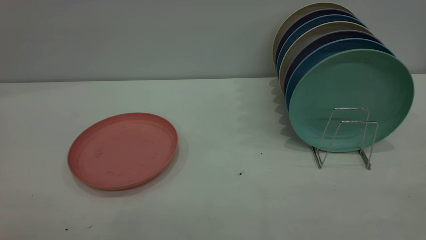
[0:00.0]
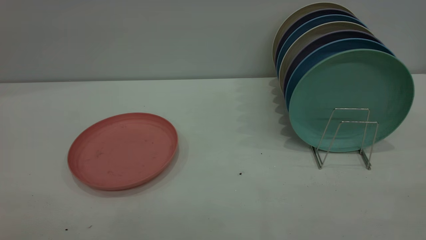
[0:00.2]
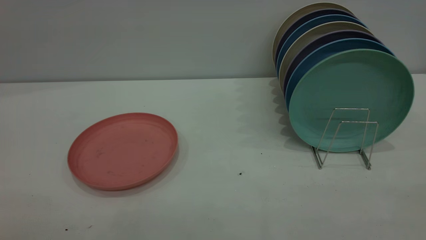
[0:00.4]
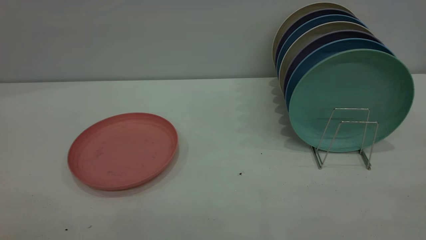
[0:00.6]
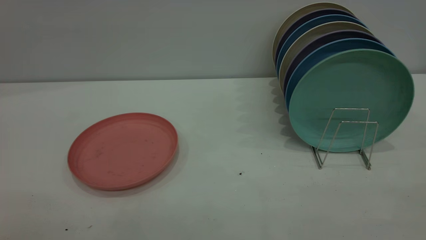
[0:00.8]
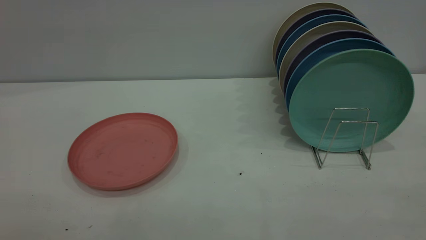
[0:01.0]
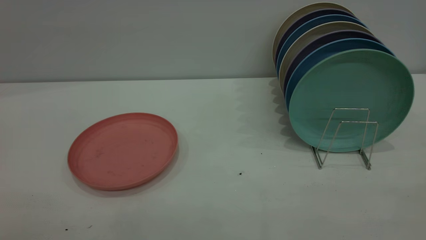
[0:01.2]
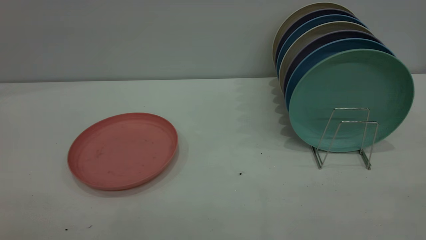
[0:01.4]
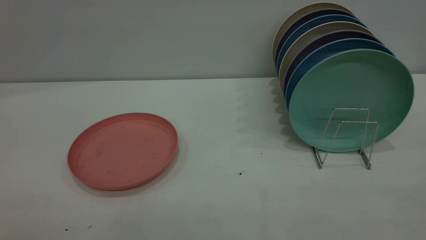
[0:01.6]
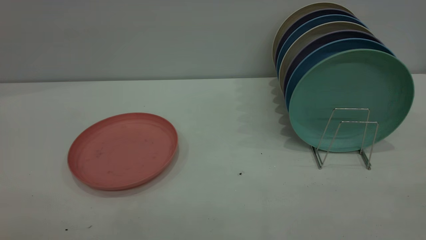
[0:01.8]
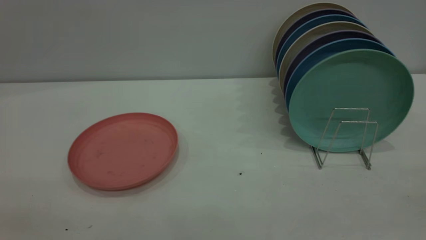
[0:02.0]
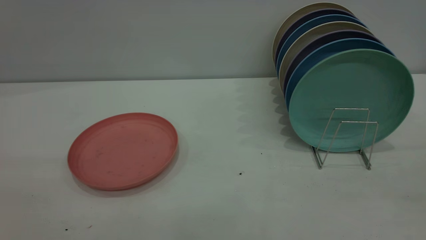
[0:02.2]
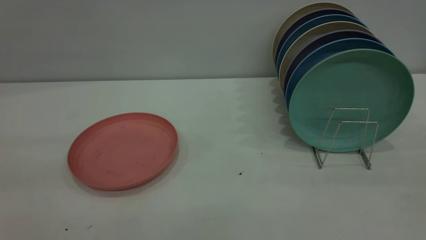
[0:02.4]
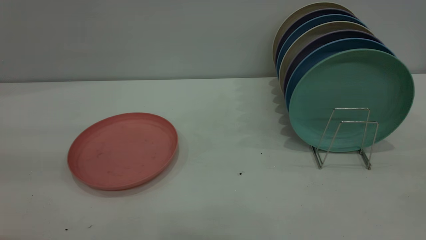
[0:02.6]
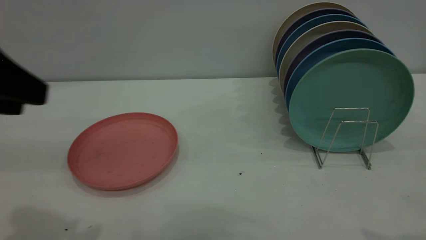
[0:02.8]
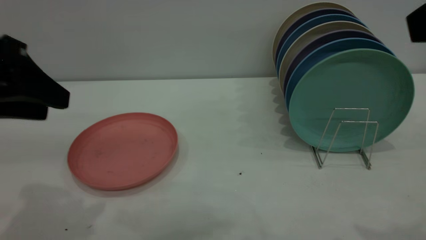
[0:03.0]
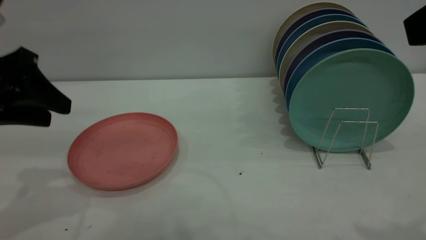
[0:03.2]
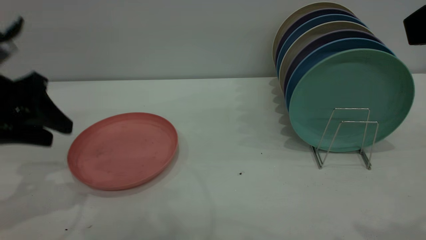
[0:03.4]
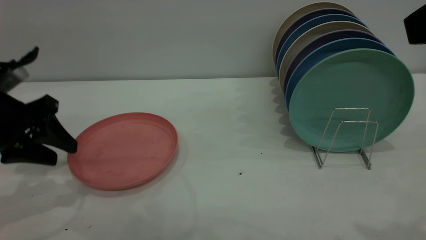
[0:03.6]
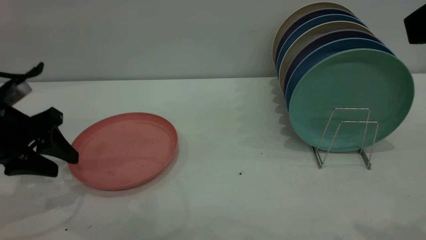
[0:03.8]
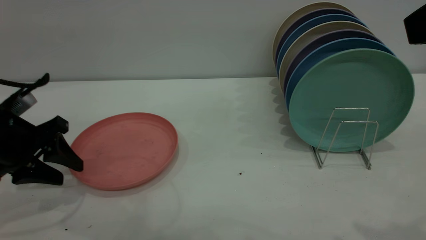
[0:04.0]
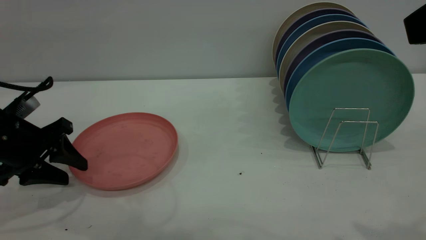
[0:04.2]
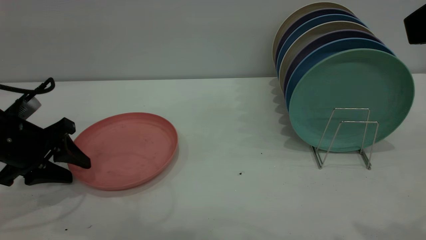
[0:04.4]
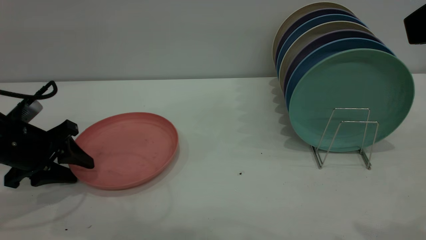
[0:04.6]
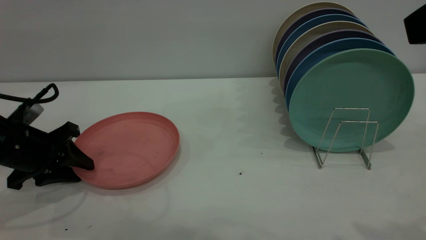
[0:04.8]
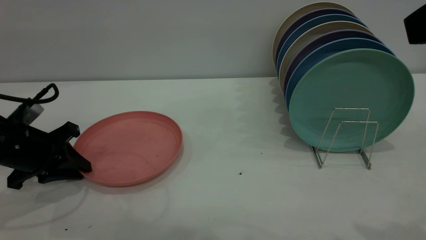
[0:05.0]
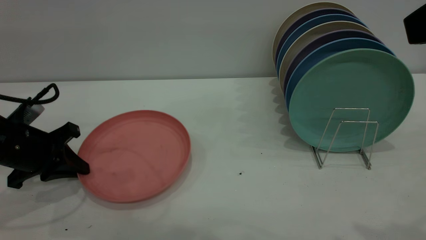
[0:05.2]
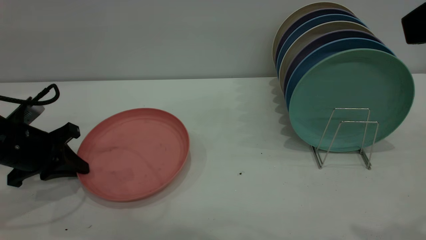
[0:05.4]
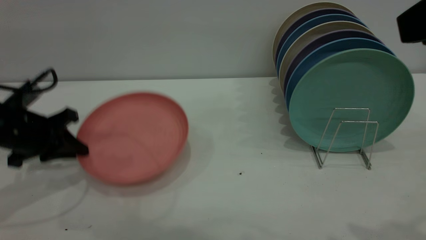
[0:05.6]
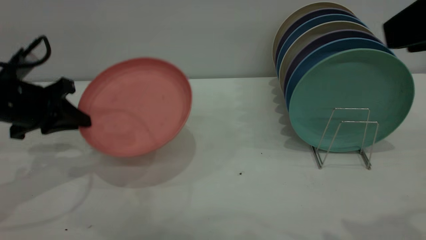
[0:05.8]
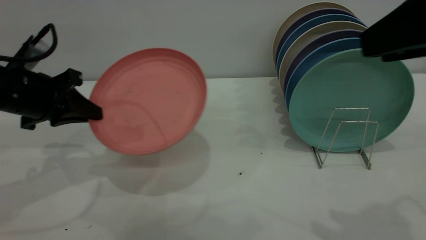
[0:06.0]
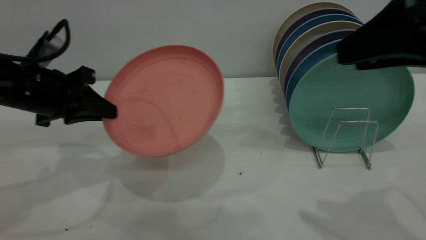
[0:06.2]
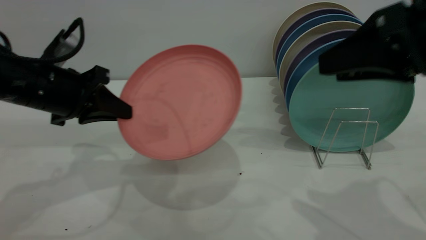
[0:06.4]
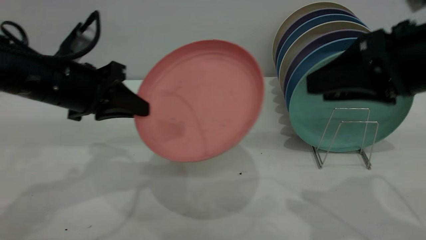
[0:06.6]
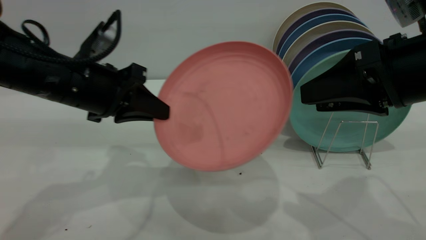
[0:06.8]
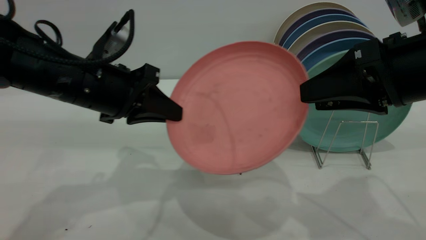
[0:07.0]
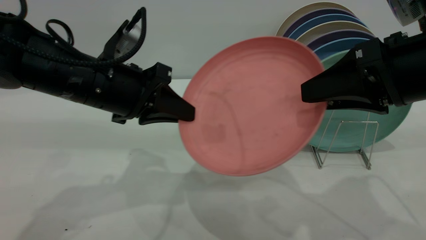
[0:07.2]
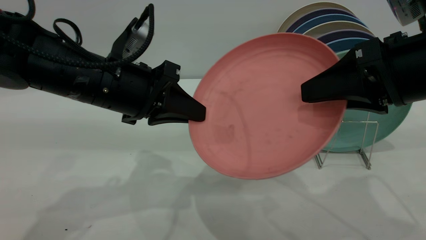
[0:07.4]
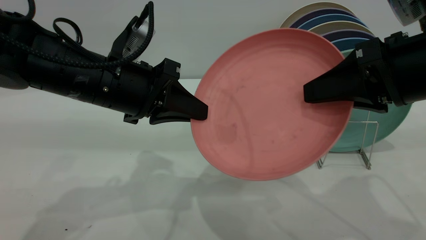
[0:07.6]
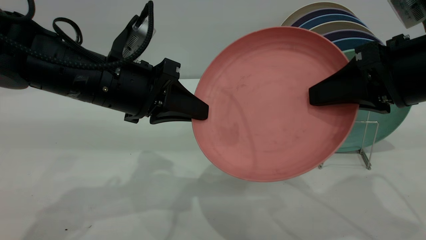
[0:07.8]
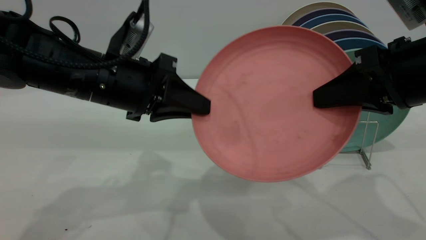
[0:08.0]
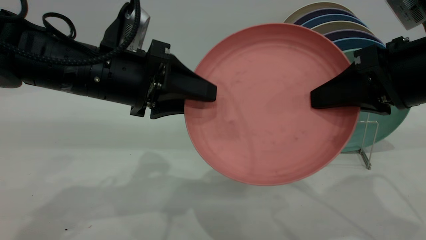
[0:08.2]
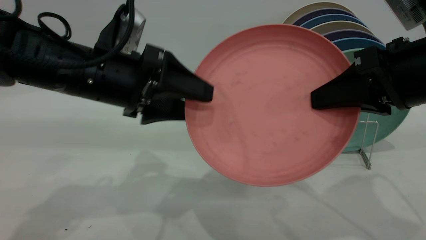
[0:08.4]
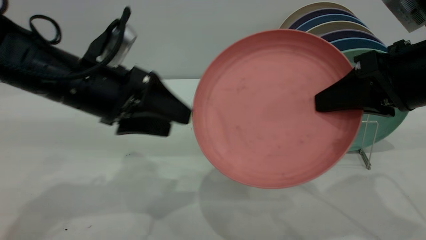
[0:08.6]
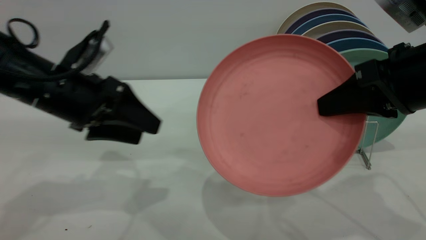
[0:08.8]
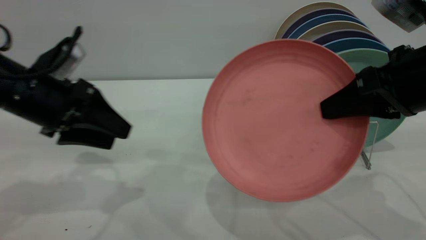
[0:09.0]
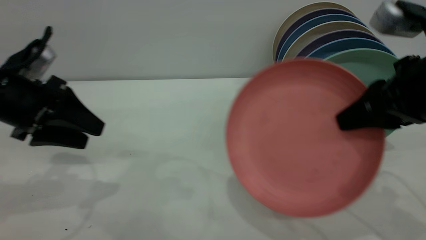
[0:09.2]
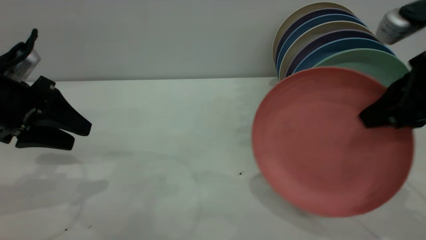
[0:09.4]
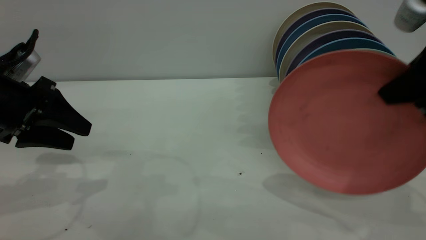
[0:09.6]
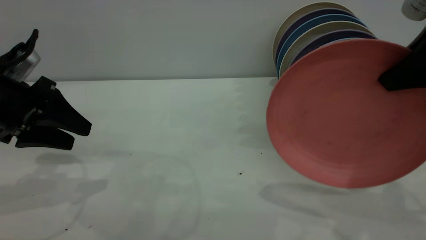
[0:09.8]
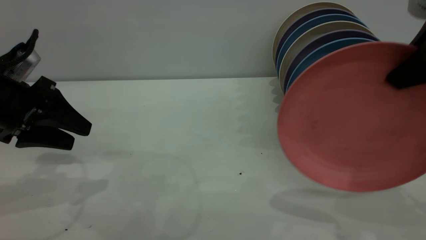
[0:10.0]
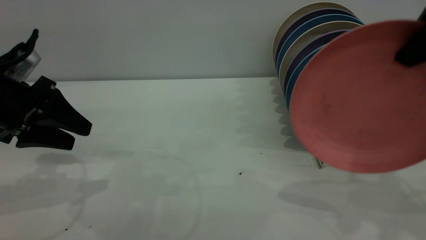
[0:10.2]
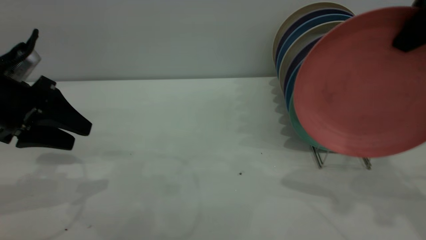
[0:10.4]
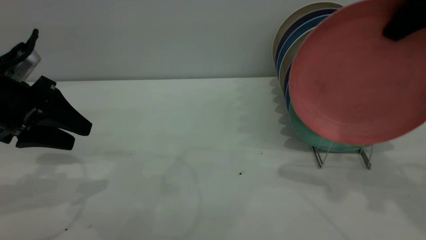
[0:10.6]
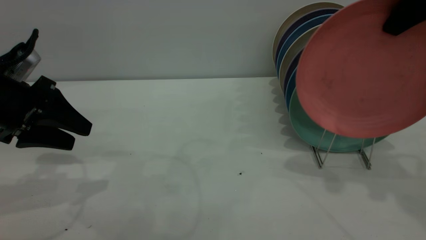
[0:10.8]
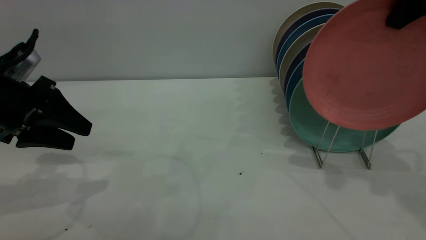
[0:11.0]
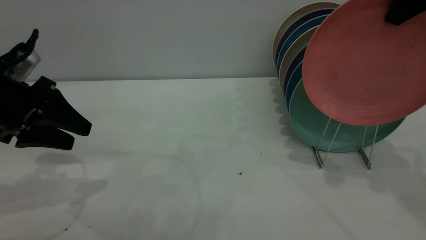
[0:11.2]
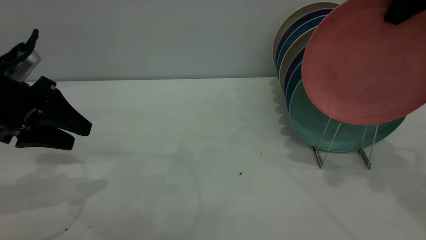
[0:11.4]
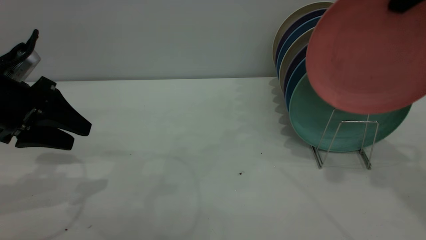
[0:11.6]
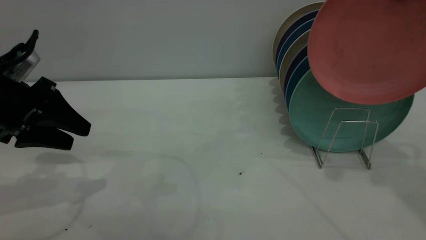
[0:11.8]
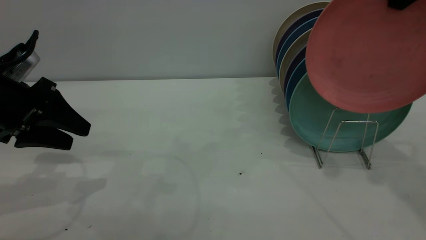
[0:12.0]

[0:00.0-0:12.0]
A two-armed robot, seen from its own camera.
Task of the whole recording: the left gripper grasp the pink plate, the left gripper pass the pink plate to the right gripper, and the right gripper place the pink plate on the plate rack.
Step, 0:00.0 to 0:05.6: Pick up the plate with the left gripper.
Step, 0:05.8 to 0:08.6: Pass the plate from the left gripper to the right gripper.
0:00.0 to 0:01.6: The two grippers keep their place.
0:01.6 to 0:03.0: The left gripper travels forward by approximately 25 cm.
0:03.0 to 0:04.4: The left gripper heads downward and forward, covering about 15 cm.
0:04.4 to 0:06.0: The right gripper moves about 5 cm; the left gripper travels upward by about 5 cm, and closes up.
0:06.0 to 0:07.6: The left gripper moves to the right, about 15 cm. The right gripper shifts some 10 cm downward, and closes.
0:07.6 to 0:09.0: The left gripper moves to the left, roughly 10 cm, and opens. Meanwhile the right gripper closes.
0:09.0 to 0:10.4: The right gripper shifts roughly 10 cm upward.
0:10.4 to 0:12.0: The right gripper shifts roughly 5 cm forward.

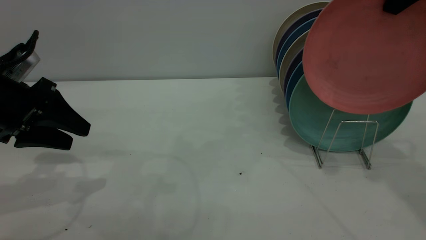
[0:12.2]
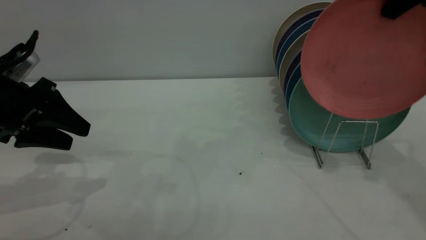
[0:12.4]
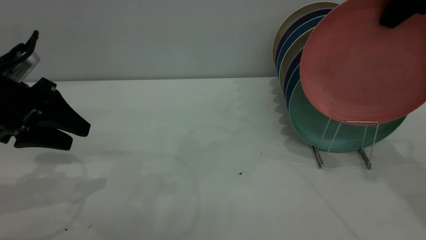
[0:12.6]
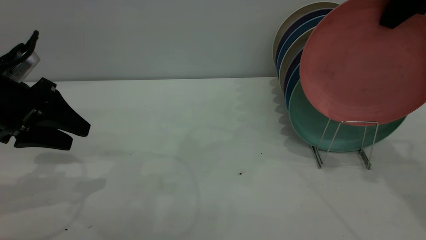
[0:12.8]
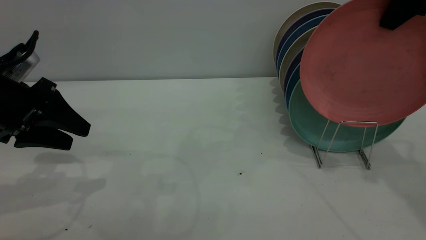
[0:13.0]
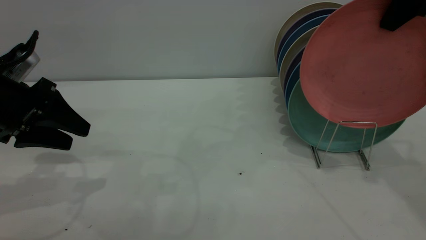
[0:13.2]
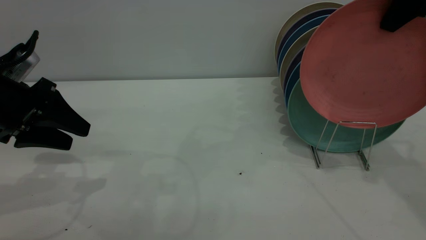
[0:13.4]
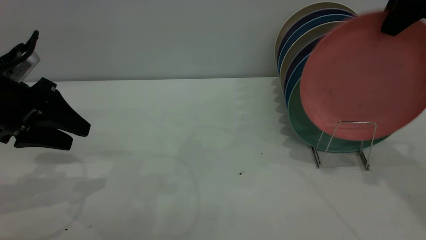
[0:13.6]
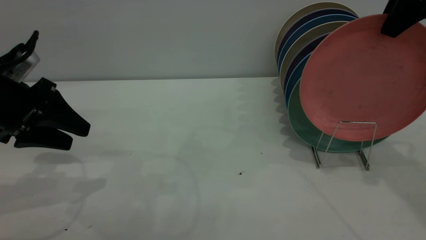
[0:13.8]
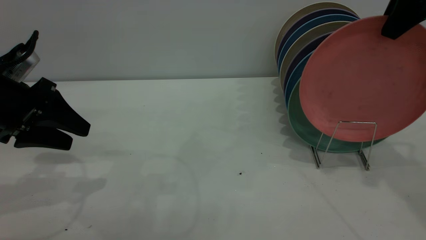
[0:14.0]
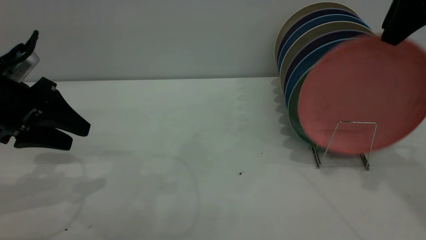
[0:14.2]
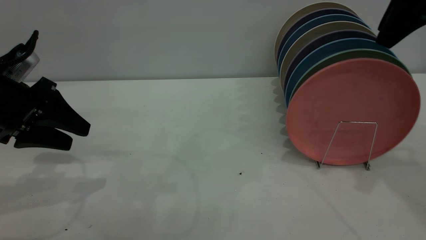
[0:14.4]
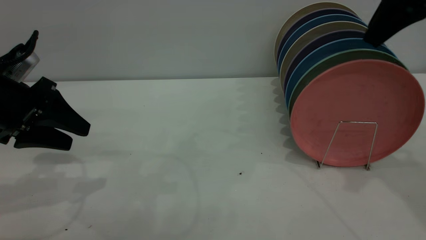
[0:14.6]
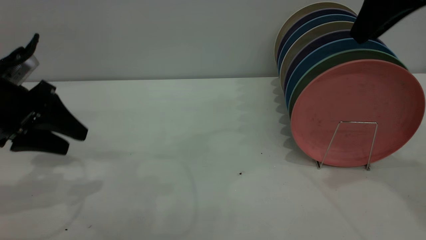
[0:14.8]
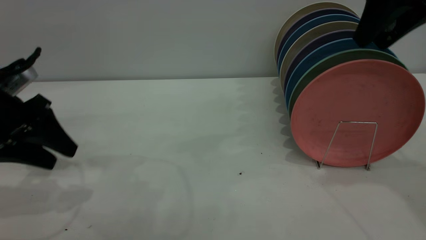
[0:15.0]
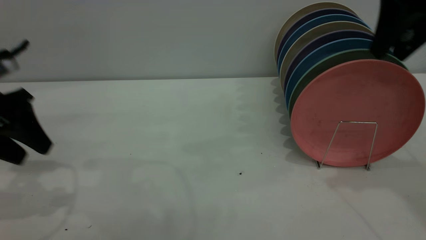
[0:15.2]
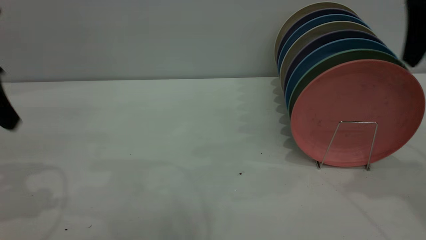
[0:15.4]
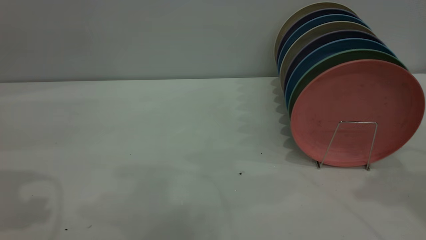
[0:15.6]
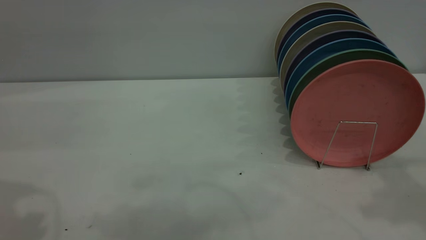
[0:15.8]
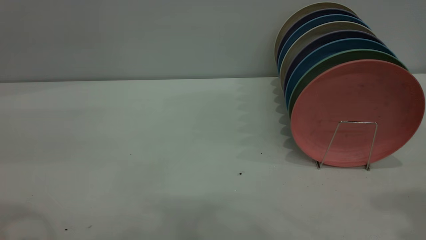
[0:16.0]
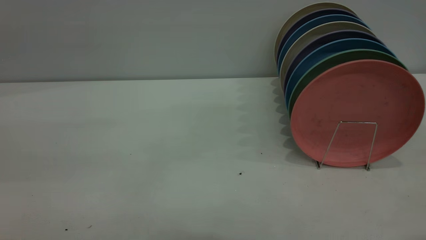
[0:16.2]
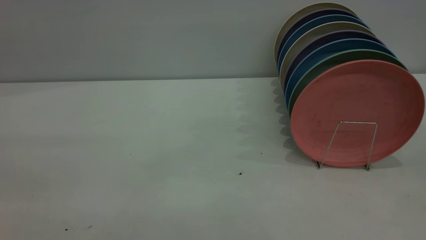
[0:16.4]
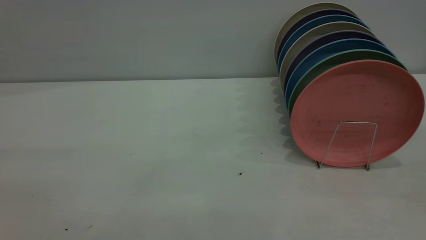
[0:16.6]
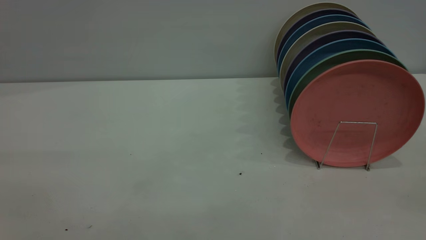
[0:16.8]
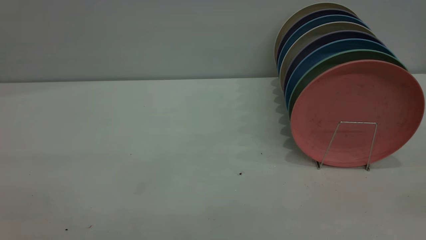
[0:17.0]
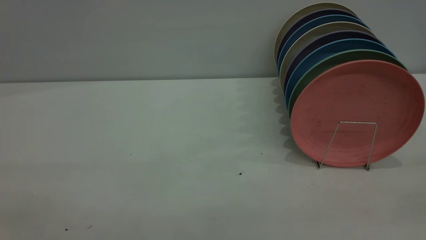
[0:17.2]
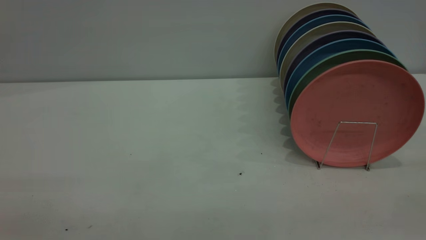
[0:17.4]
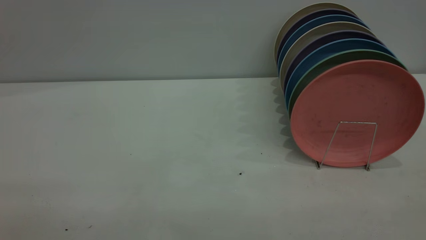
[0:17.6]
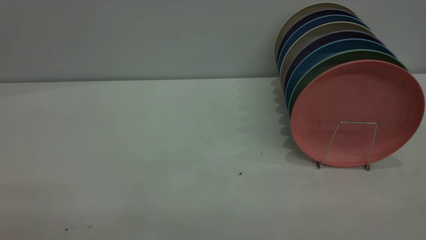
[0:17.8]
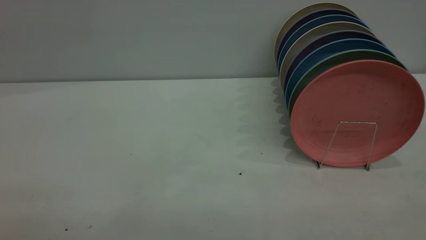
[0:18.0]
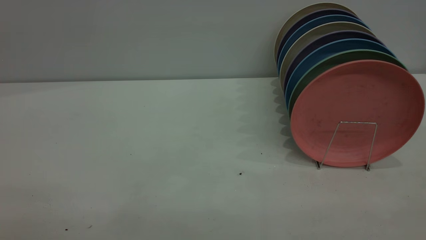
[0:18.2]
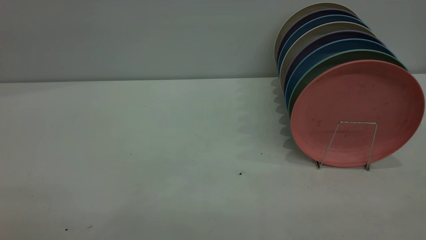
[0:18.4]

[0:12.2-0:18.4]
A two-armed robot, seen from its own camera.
Task of the whole recording: the left gripper grasp the pink plate, the left gripper pass the pink plate to the right gripper, and the right gripper place the pink plate on the plate rack.
Step, 0:12.2 to 0:15.2: Place the plate on the shelf.
0:12.2 to 0:13.8: The right gripper opens.
0:13.8 to 0:15.4: The right gripper opens; the left gripper moves upward, roughly 10 cm.
0:15.4 to 0:16.8: The left gripper goes approximately 30 cm backward and upward; the right gripper is displaced backward by about 30 cm.
